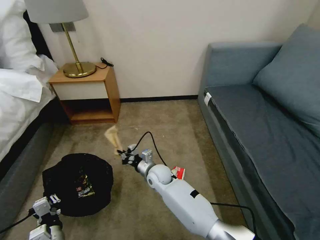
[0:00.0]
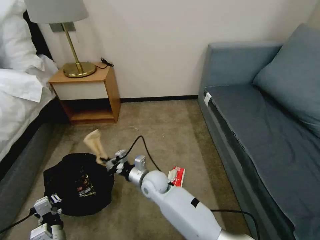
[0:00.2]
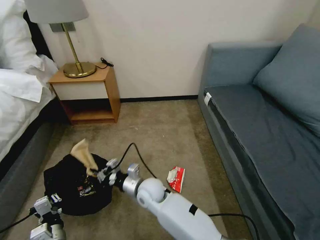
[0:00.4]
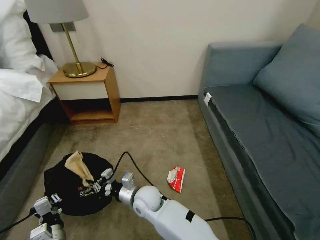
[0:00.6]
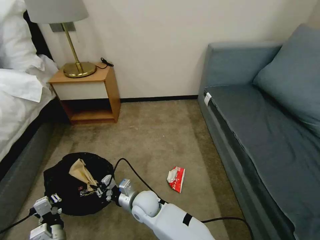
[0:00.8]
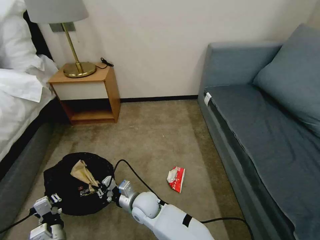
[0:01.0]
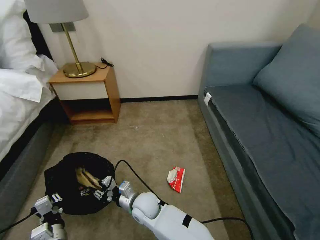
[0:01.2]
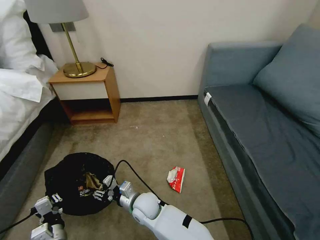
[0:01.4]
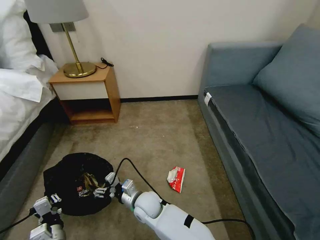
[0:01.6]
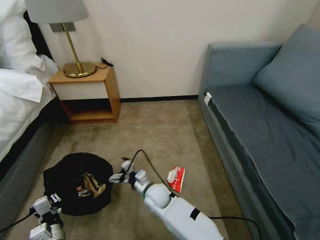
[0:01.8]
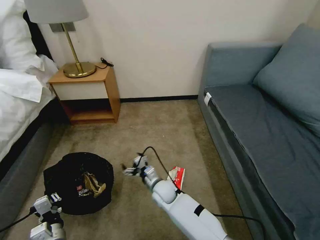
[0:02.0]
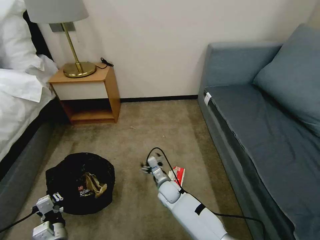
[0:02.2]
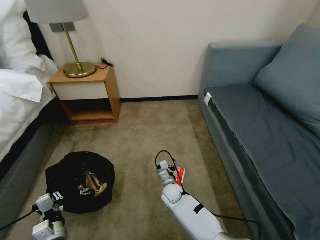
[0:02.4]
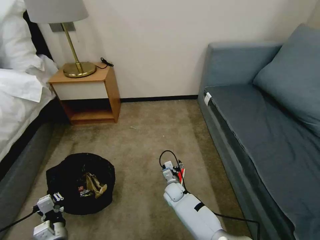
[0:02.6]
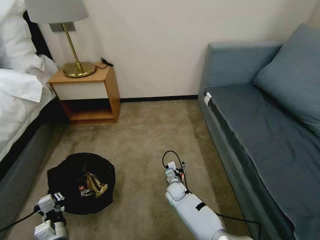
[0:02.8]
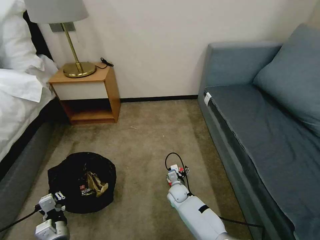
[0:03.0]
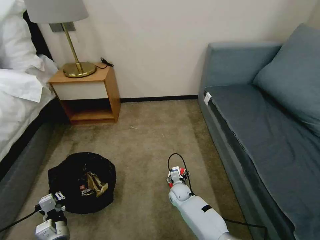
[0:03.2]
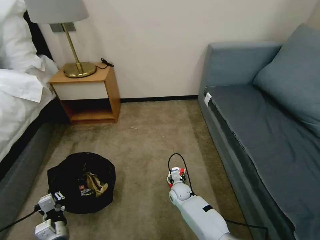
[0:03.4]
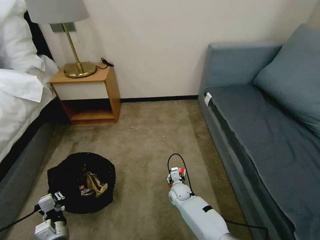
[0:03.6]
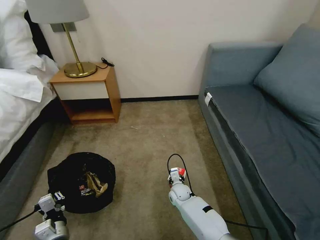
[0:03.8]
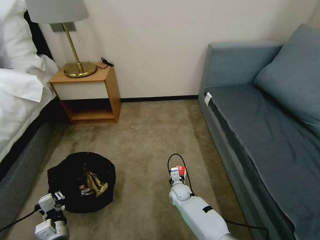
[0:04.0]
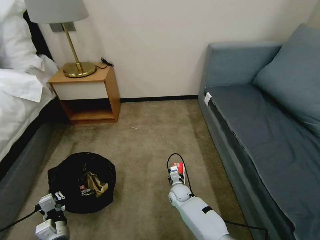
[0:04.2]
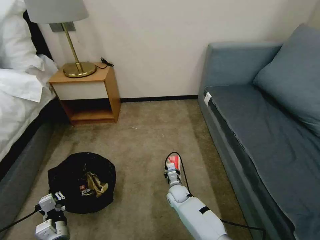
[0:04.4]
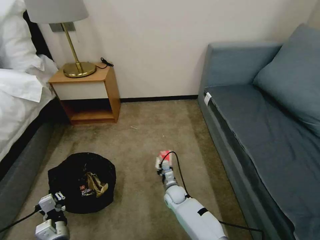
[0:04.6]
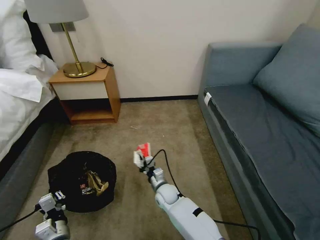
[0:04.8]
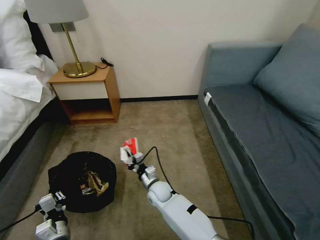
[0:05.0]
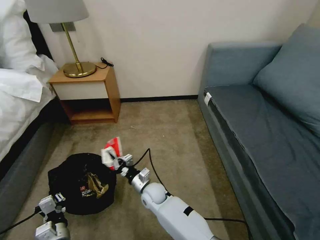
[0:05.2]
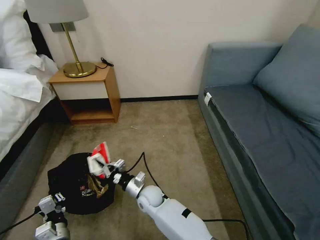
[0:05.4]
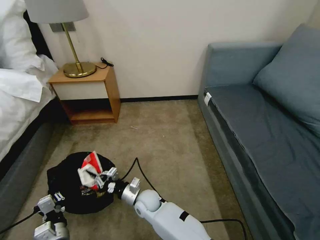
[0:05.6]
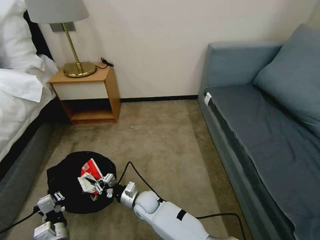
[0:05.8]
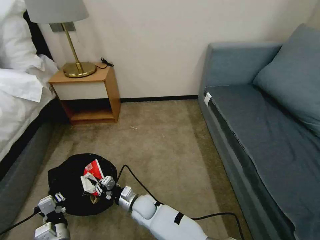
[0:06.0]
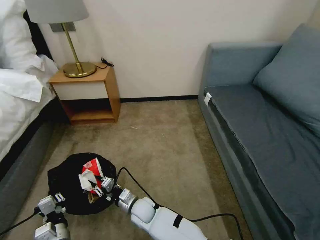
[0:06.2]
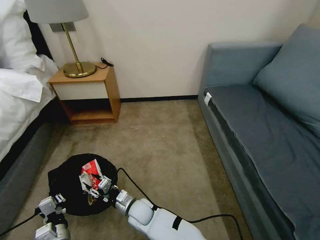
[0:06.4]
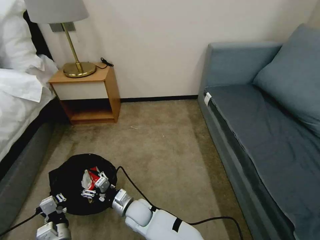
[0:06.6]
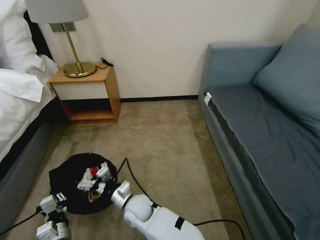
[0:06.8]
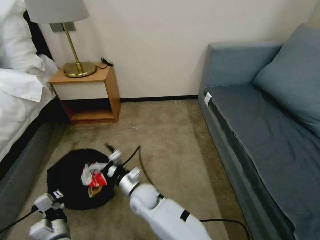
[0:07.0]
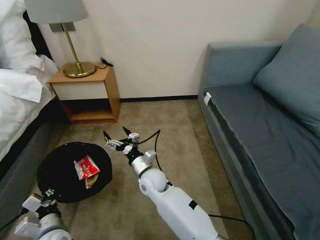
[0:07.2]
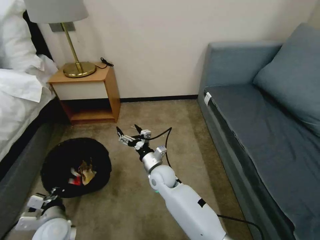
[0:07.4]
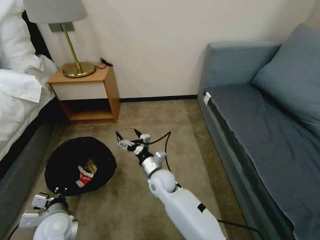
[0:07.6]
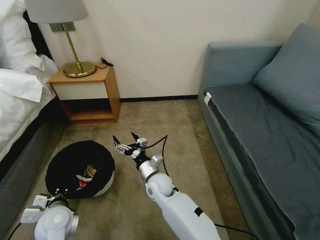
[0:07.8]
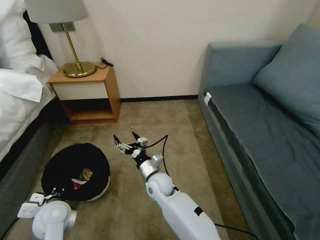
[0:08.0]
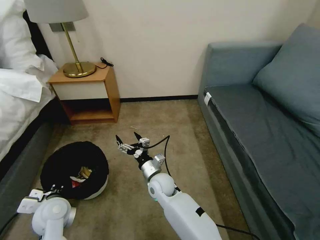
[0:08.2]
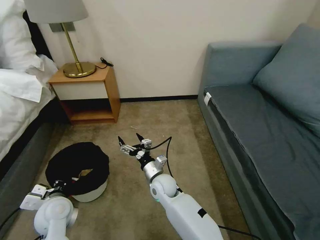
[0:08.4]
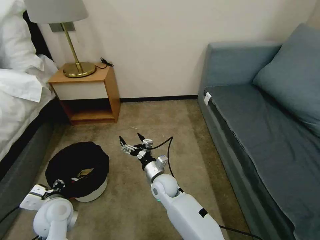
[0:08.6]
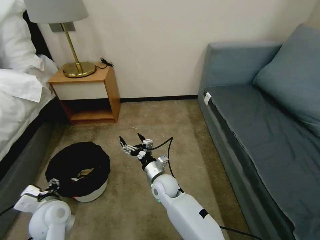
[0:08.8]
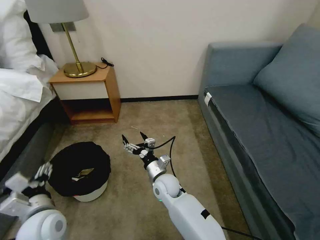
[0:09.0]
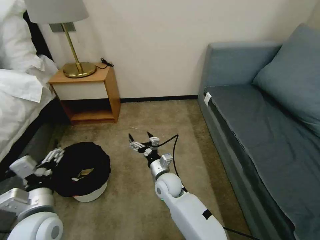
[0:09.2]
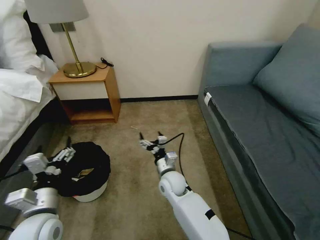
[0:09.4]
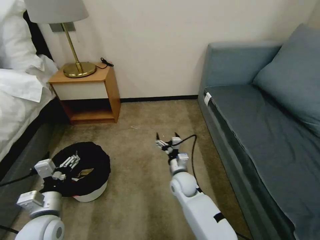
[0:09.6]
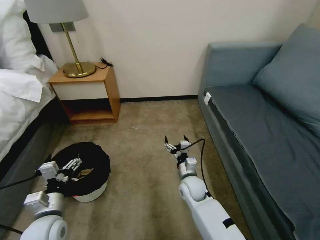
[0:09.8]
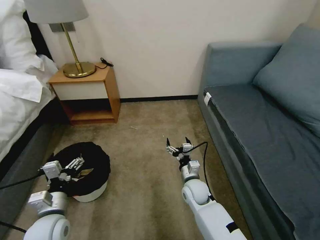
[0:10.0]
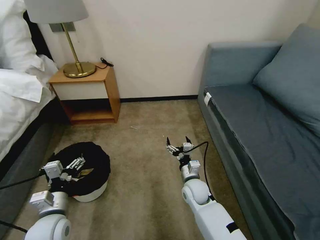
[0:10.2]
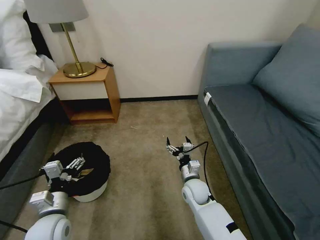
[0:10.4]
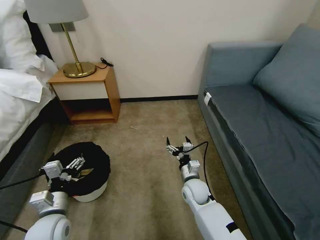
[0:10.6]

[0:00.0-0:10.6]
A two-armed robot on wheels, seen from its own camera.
Task of the whole recording: Pick up the trash bin, then pick up the garbage on the floor and place it into the trash bin.
0:00.0 to 0:01.6: The right gripper moves backward, about 10 cm, and opens its fingers.
0:01.6 to 0:03.0: The right gripper goes approximately 20 cm to the right, downward and forward.
0:03.0 to 0:04.6: The right gripper closes up.
0:04.6 to 0:06.0: The right gripper is displaced to the left, backward and upward by some 15 cm.
0:06.0 to 0:07.6: The left gripper moves forward and upward, some 10 cm. Meanwhile the right gripper is displaced upward, to the right and forward by roughly 15 cm, and opens up.
0:07.6 to 0:09.0: The left gripper is displaced upward by about 5 cm, and opens its fingers.
0:09.0 to 0:10.6: The left gripper shifts approximately 5 cm downward. Meanwhile the right gripper travels to the right by roughly 10 cm.

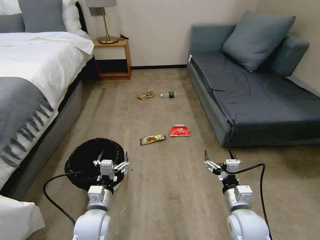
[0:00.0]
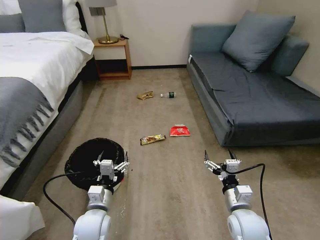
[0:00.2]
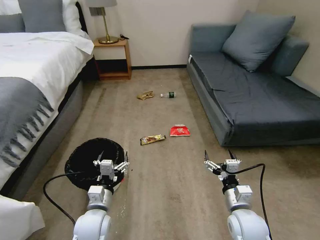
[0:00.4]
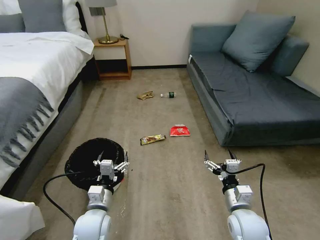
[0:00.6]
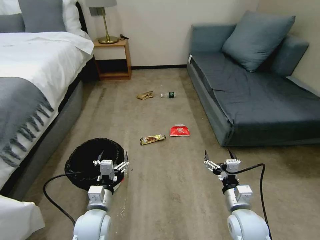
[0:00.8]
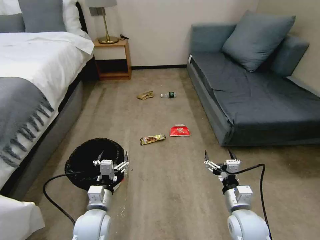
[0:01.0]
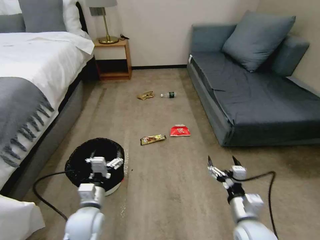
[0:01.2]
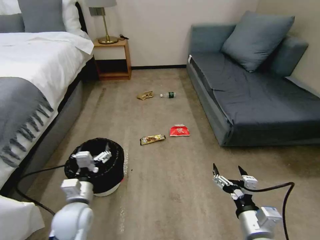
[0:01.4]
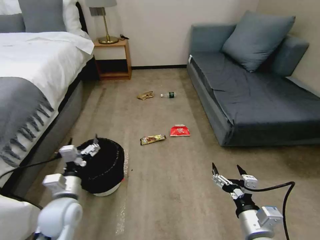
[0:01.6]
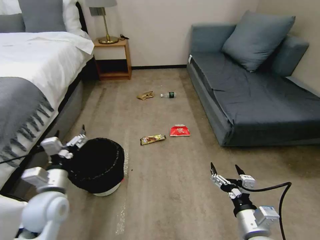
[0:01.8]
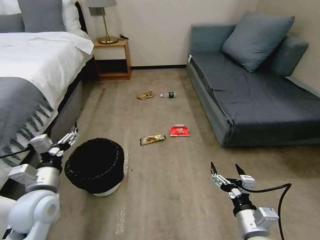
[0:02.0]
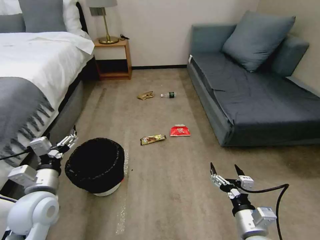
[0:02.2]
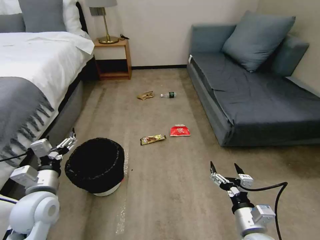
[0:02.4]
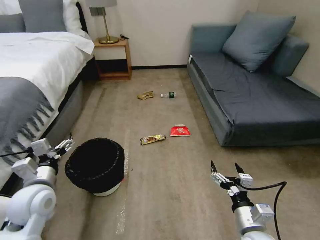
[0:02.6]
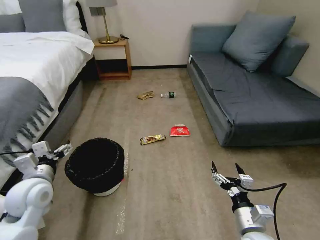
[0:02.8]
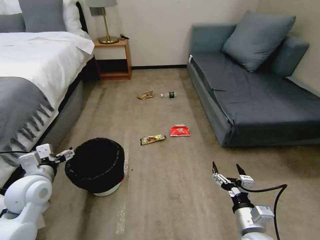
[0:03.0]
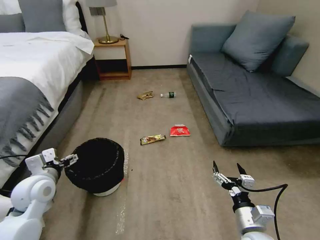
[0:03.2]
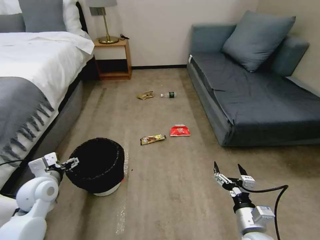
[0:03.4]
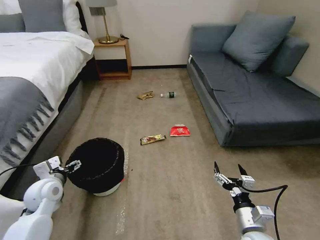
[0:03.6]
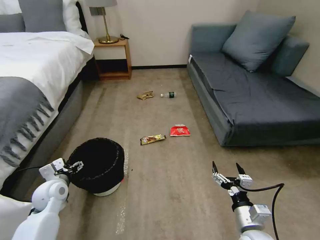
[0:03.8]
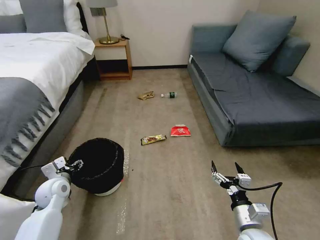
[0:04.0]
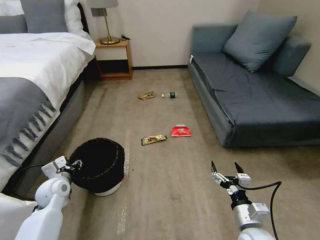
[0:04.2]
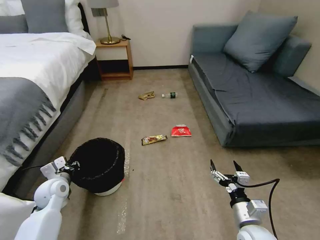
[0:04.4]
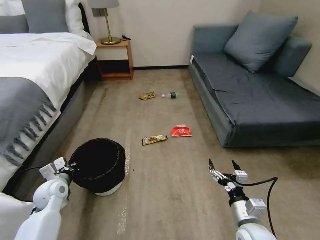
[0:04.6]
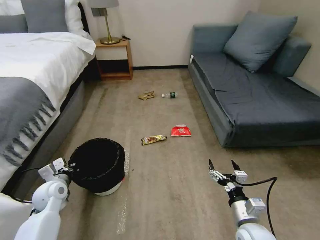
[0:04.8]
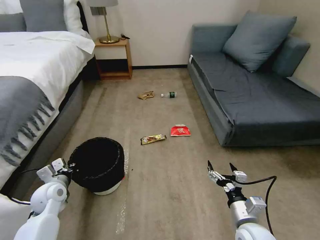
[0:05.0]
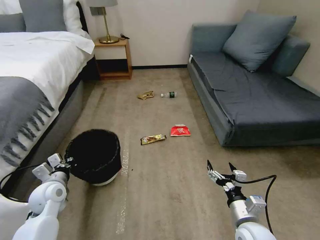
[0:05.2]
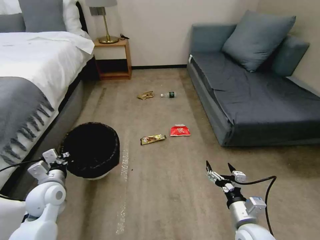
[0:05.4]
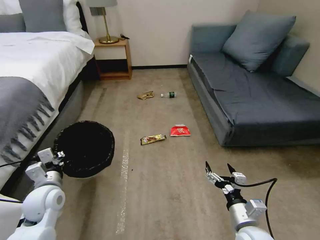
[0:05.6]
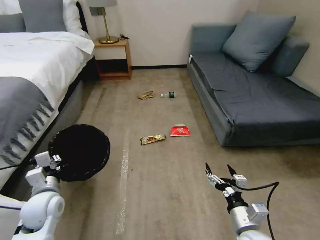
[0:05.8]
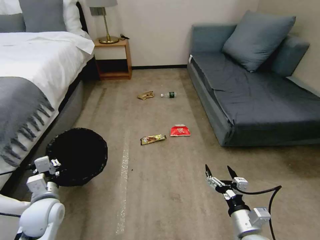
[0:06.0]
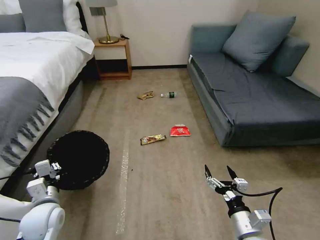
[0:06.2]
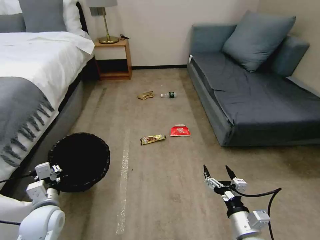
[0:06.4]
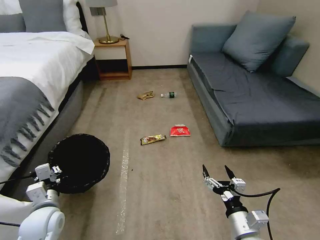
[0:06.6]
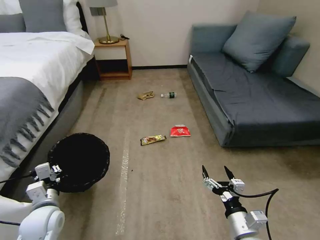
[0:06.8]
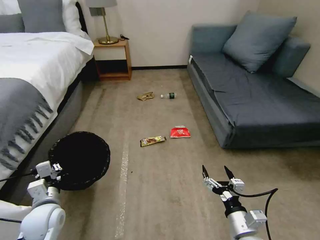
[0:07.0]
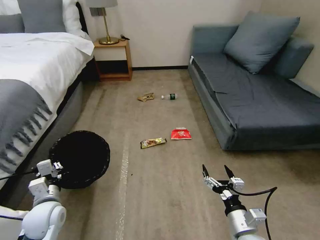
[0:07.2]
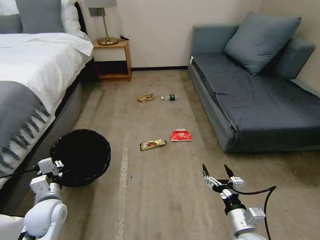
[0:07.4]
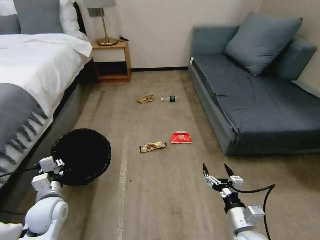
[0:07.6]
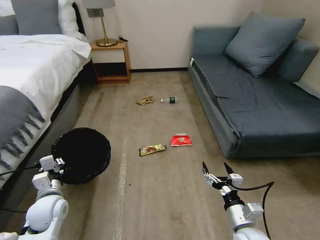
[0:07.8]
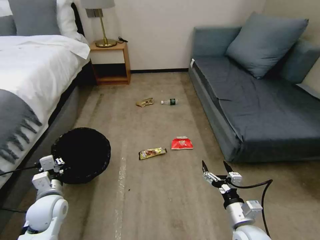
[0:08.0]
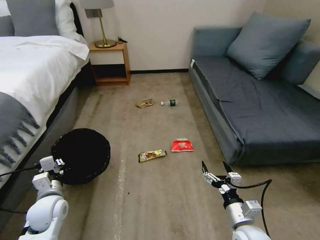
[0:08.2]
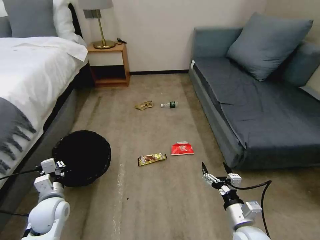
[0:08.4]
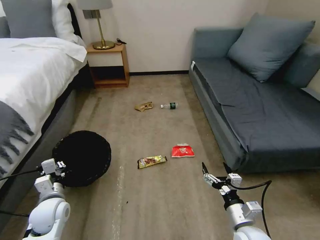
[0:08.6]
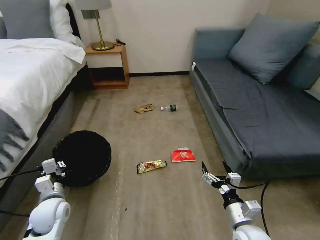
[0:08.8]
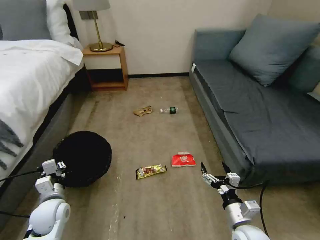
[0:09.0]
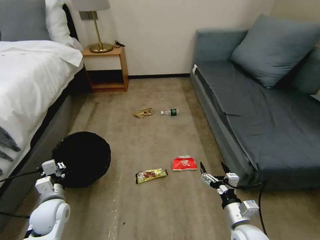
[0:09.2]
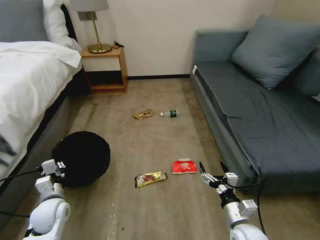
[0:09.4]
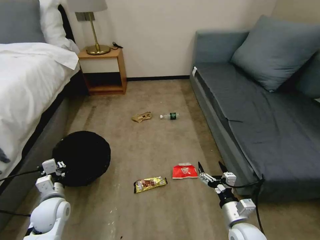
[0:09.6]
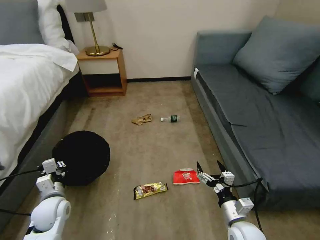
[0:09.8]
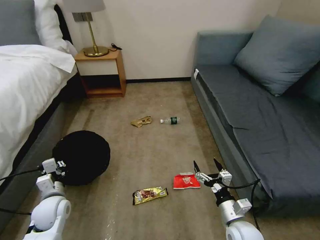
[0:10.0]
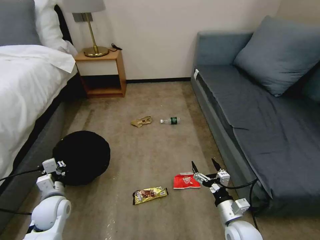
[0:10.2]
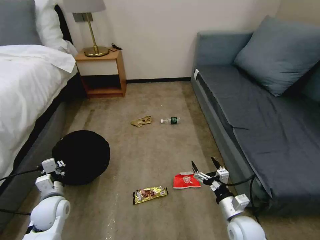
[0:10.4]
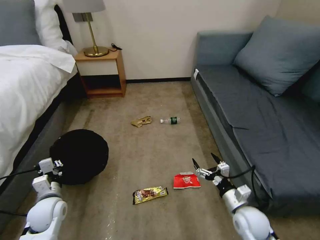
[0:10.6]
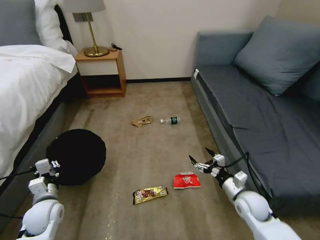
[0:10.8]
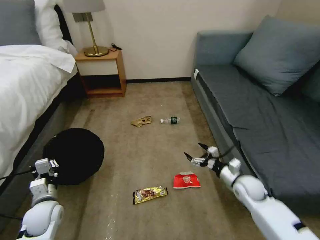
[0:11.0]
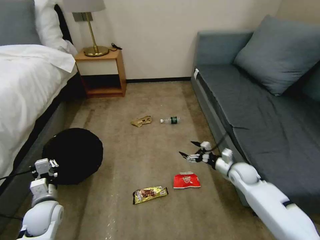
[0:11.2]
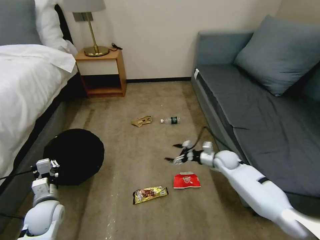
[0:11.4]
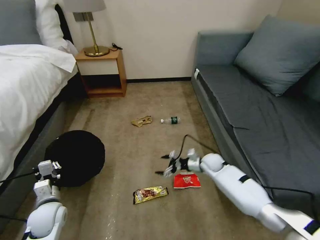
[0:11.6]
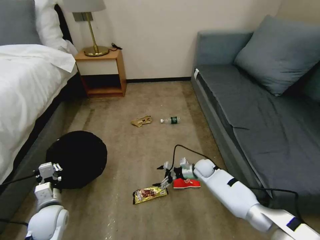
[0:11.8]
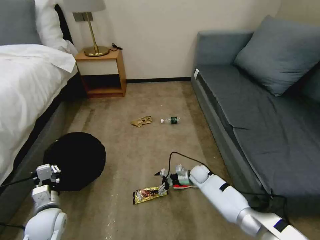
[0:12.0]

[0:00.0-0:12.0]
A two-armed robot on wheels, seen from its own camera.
Task of the whole recording: Pick up the trash bin, then pick up the garbage on the floor and place it into the trash bin.
0:01.6 to 0:03.0: The right gripper shifts by about 5 cm. Meanwhile the left gripper moves to the left and upward, approximately 10 cm.
0:03.0 to 0:04.4: The left gripper shifts about 10 cm downward, and closes up.
0:04.4 to 0:06.0: The left gripper heads backward, covering about 10 cm.
0:06.0 to 0:07.6: The grippers make only small movements.
0:10.4 to 0:12.0: The right gripper shifts about 25 cm forward and downward.
